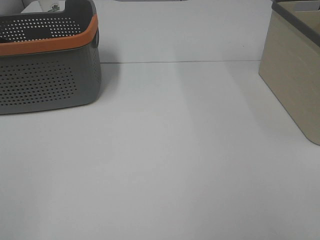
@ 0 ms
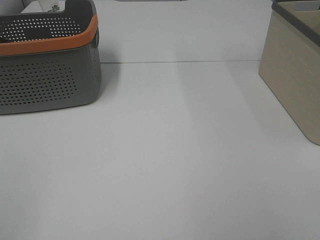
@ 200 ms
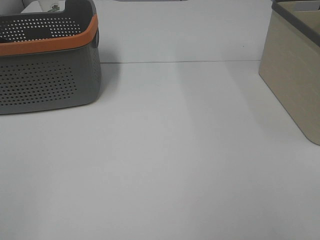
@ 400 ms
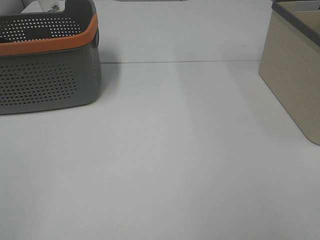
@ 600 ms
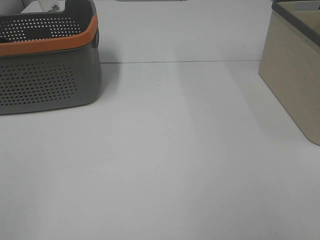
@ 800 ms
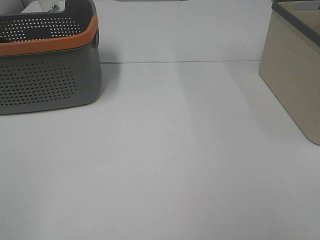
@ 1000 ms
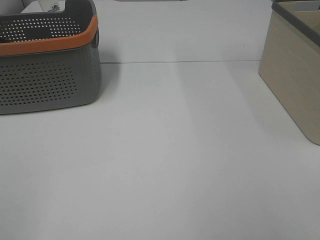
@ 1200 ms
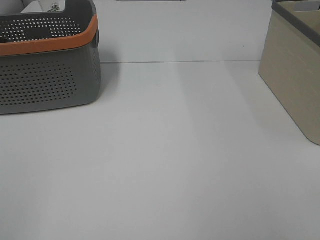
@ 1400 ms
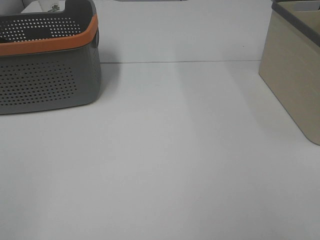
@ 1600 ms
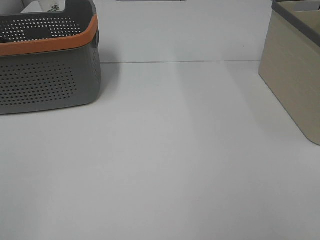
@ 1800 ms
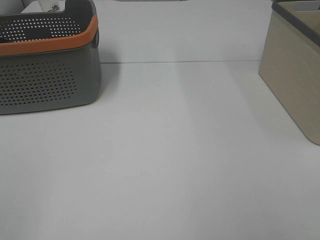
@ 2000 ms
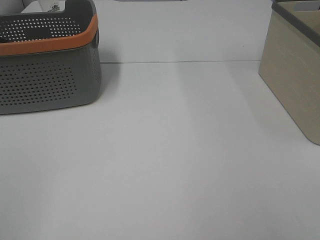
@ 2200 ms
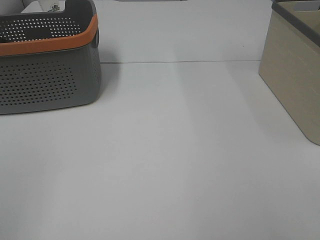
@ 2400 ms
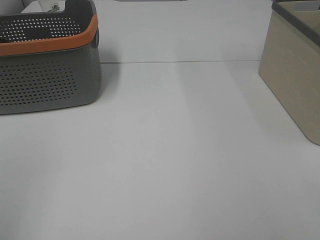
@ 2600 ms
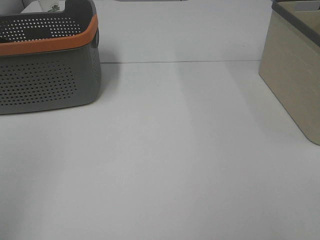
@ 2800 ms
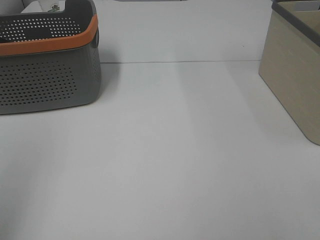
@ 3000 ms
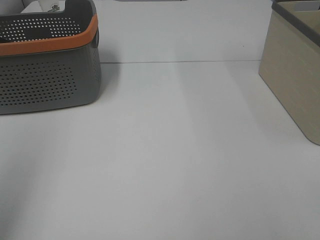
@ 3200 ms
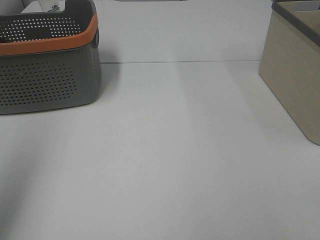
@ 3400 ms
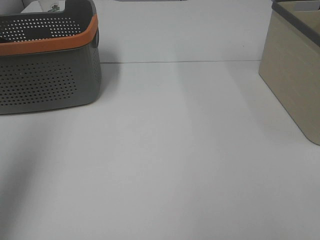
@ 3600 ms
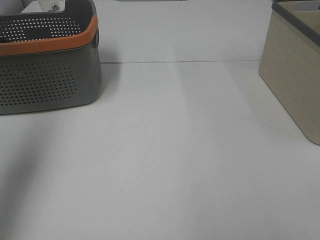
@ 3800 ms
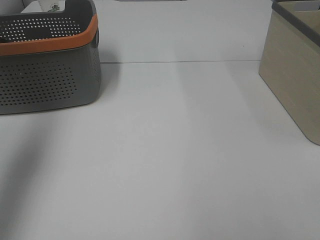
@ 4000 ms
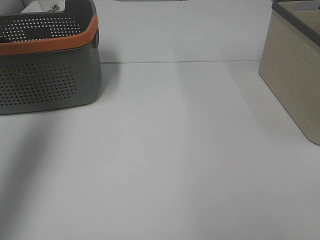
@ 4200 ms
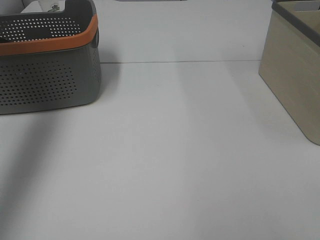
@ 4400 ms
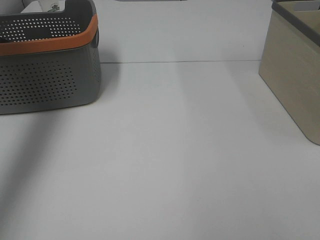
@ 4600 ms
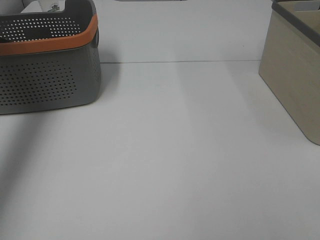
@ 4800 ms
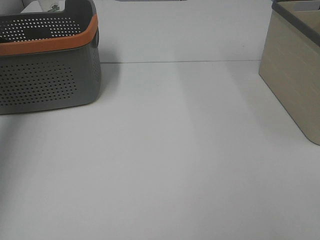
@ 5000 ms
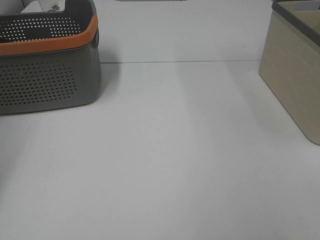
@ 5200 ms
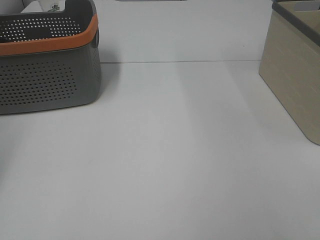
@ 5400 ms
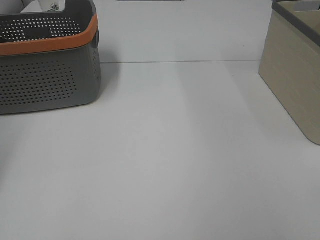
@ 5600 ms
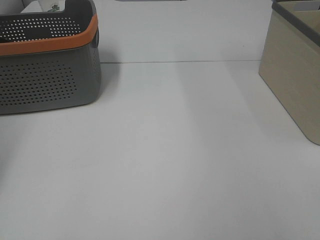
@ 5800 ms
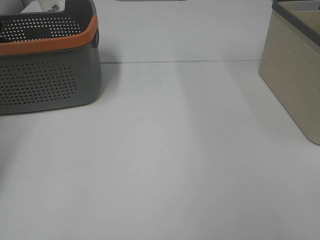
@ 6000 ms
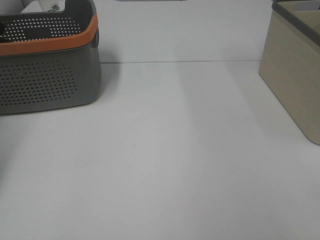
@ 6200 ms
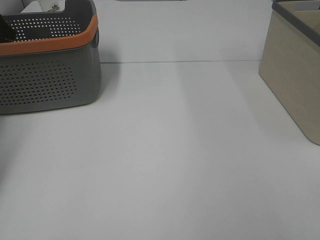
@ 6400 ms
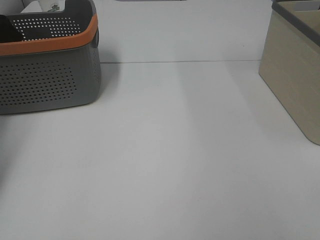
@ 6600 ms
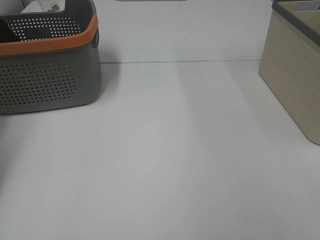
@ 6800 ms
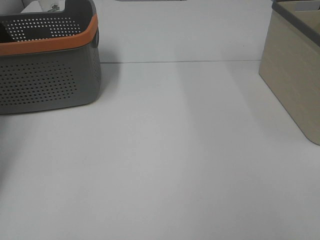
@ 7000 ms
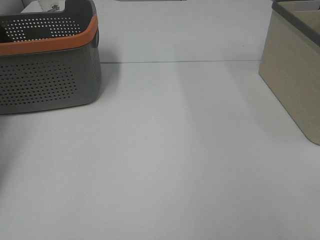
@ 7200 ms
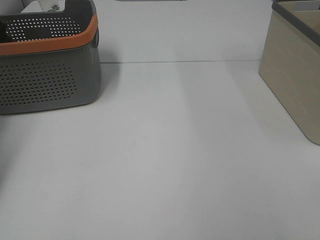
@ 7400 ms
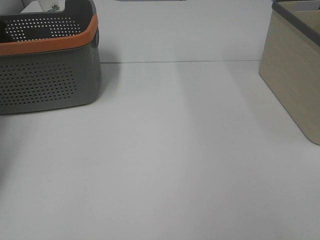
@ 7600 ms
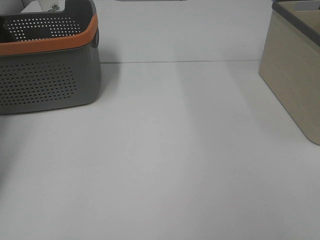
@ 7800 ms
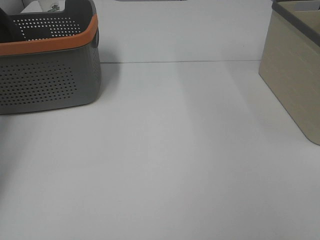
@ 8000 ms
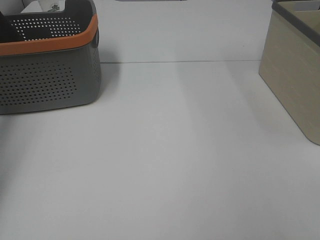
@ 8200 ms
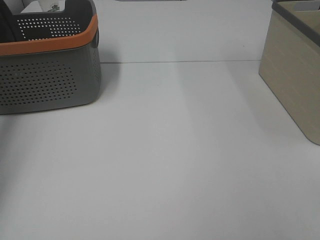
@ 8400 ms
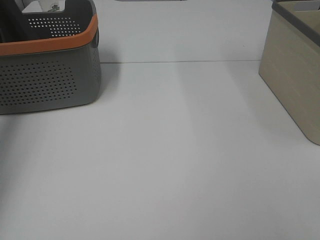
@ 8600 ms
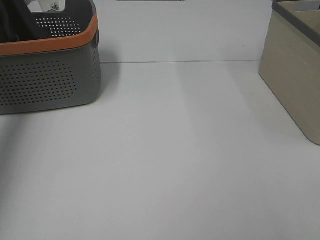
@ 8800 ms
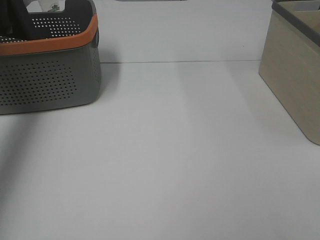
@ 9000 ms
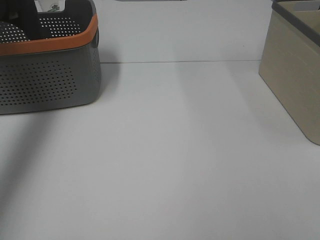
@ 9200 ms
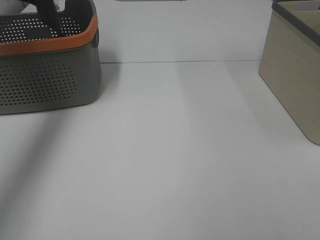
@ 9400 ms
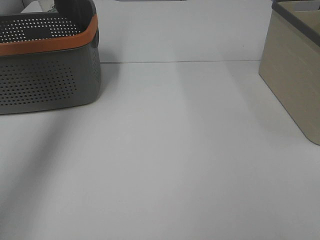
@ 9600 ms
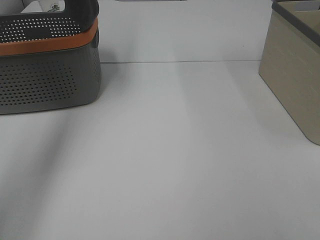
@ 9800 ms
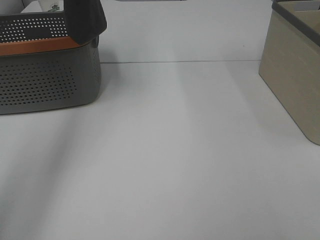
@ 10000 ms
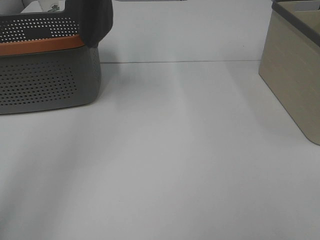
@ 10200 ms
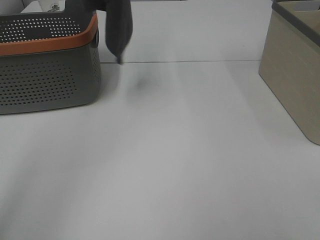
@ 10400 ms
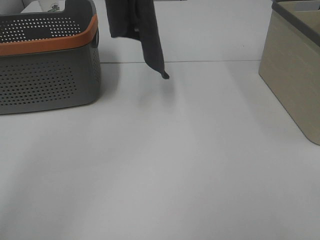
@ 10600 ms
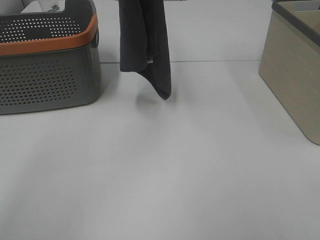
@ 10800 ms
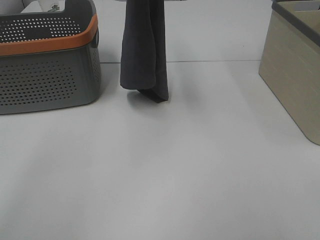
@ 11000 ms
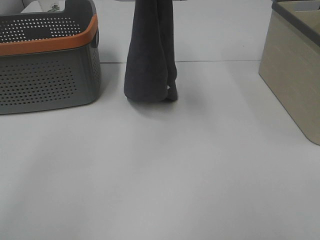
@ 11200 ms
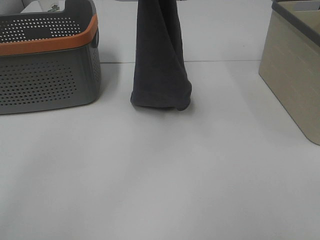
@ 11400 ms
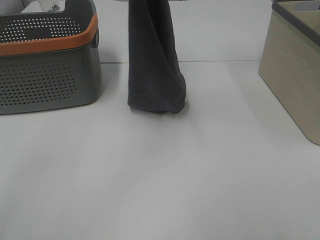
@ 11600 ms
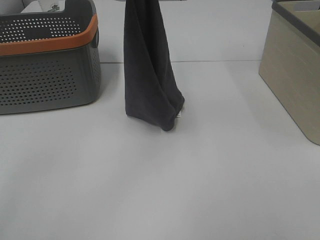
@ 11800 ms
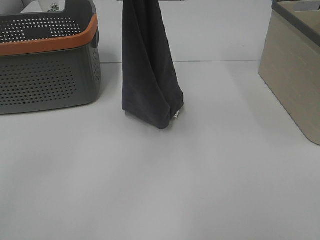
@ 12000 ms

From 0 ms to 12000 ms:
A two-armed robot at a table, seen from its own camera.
Task of the whole recording: Remove the towel and place it.
From 0 ms to 1600 ms: Neither gripper changes place.
From 3000 ms to 4400 ms: The left gripper goes approximately 25 cm forward.
From 4400 ms to 6000 ms: The left gripper travels forward, downward and to the left by roughly 25 cm.
From 7600 ms to 9000 ms: The left gripper moves upward, approximately 25 cm.
From 9000 ms to 10400 ms: The left gripper travels to the right by approximately 20 cm.
From 10400 ms to 12000 ms: The left gripper shifts roughly 20 cm downward, backward and to the right.

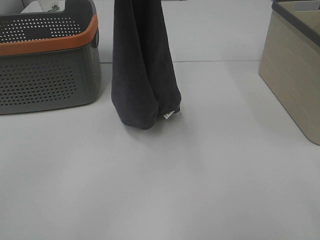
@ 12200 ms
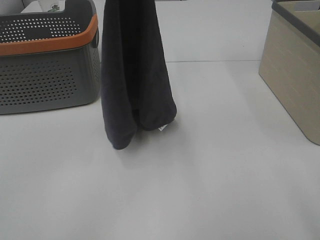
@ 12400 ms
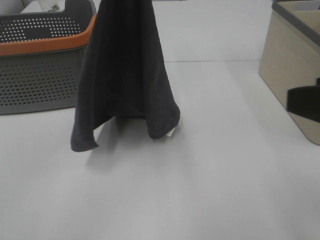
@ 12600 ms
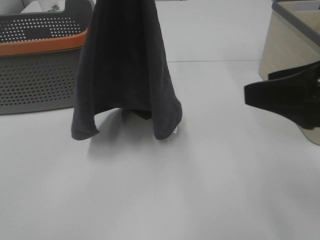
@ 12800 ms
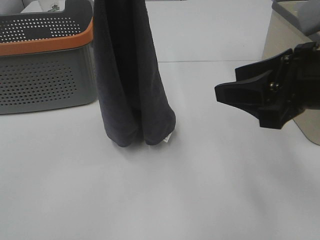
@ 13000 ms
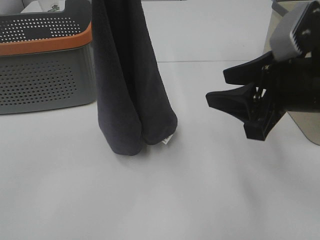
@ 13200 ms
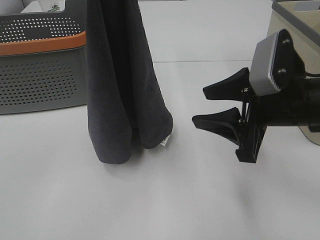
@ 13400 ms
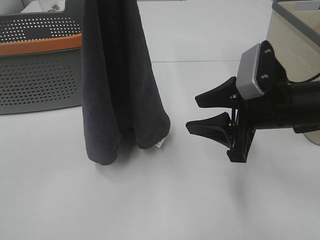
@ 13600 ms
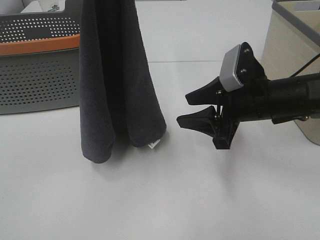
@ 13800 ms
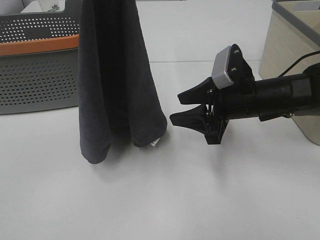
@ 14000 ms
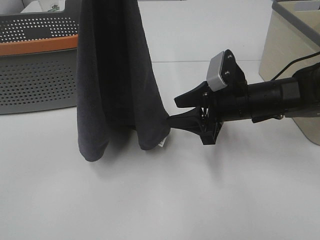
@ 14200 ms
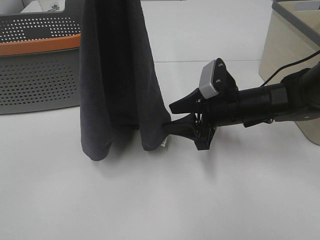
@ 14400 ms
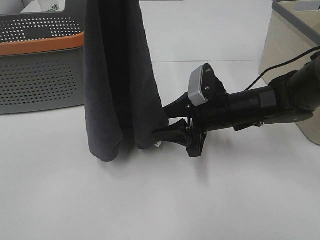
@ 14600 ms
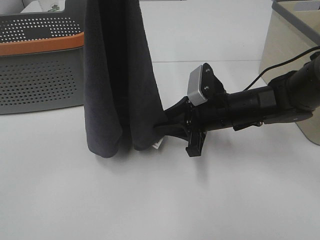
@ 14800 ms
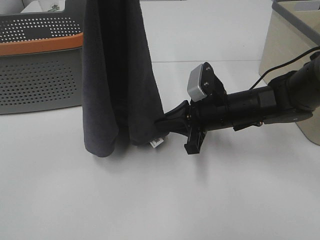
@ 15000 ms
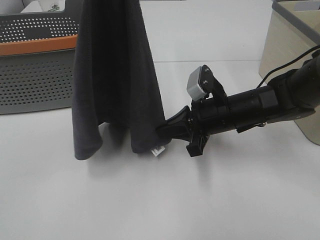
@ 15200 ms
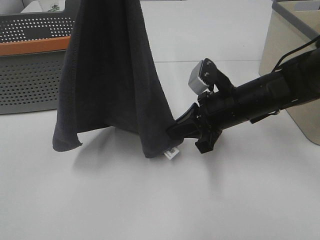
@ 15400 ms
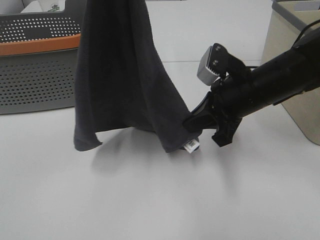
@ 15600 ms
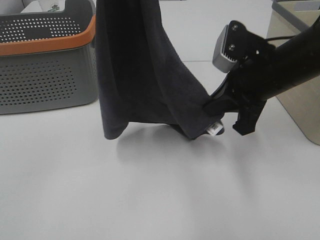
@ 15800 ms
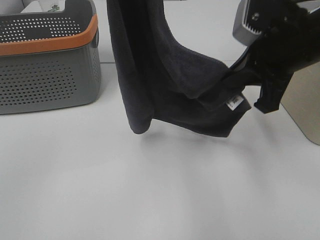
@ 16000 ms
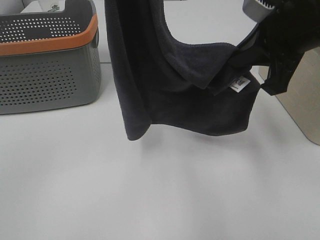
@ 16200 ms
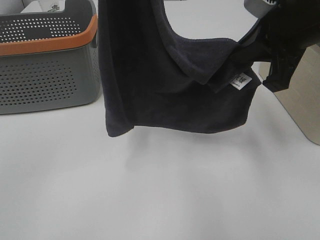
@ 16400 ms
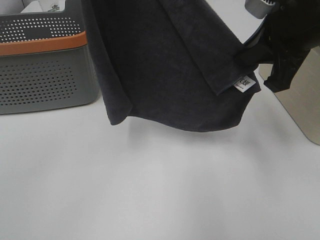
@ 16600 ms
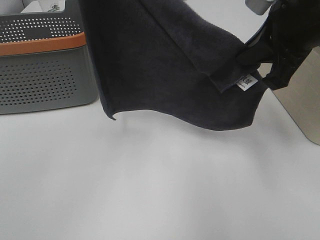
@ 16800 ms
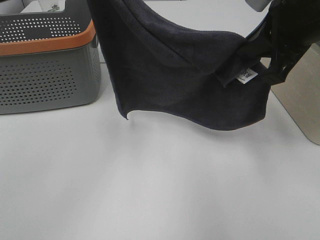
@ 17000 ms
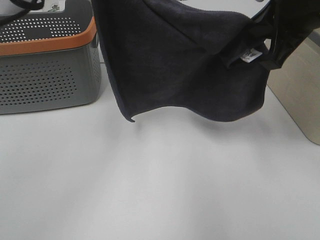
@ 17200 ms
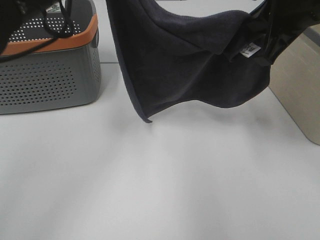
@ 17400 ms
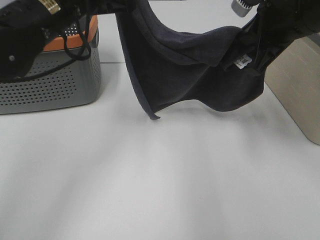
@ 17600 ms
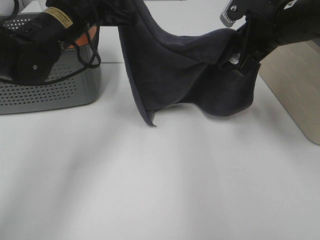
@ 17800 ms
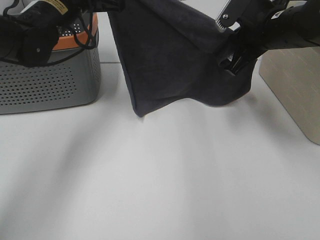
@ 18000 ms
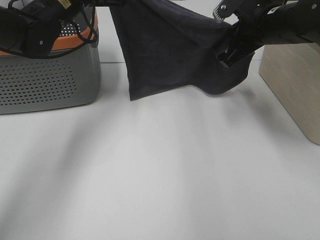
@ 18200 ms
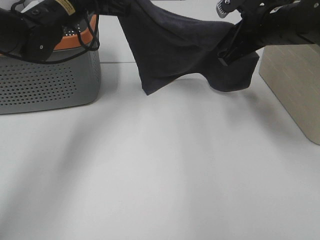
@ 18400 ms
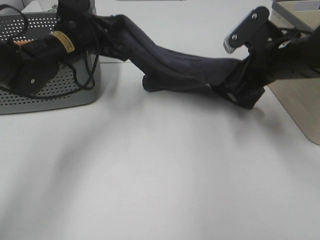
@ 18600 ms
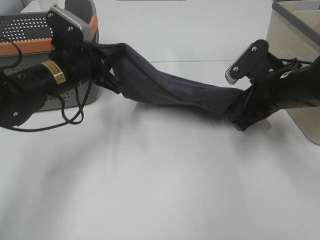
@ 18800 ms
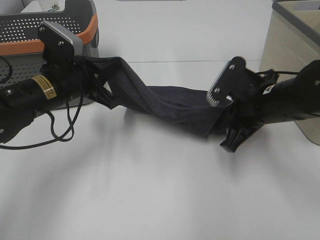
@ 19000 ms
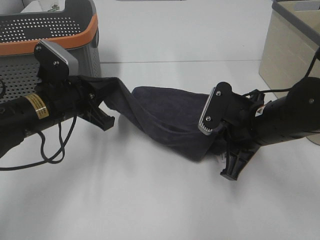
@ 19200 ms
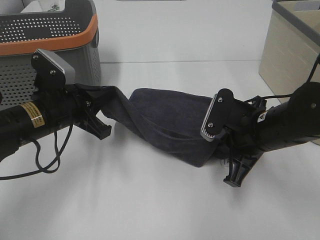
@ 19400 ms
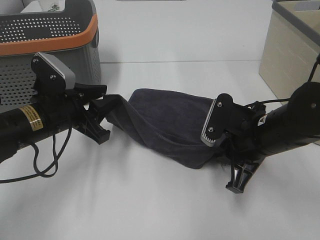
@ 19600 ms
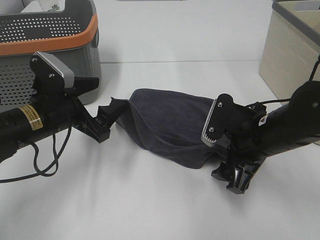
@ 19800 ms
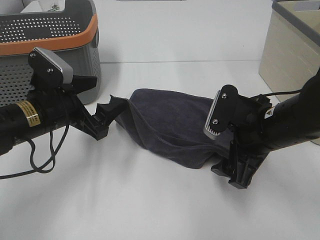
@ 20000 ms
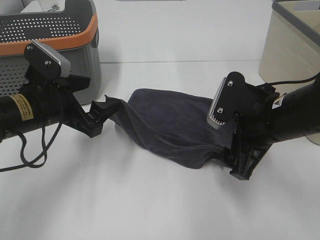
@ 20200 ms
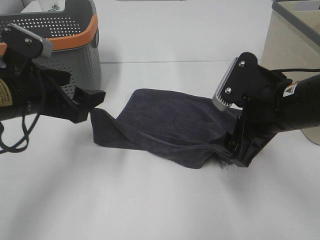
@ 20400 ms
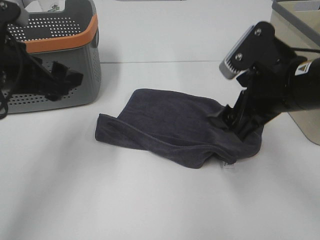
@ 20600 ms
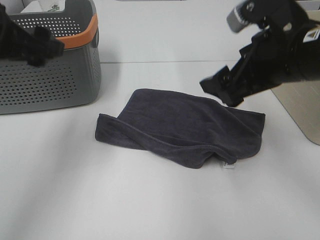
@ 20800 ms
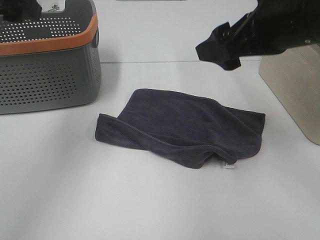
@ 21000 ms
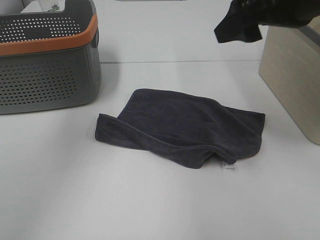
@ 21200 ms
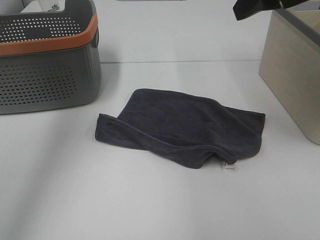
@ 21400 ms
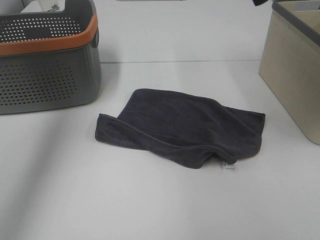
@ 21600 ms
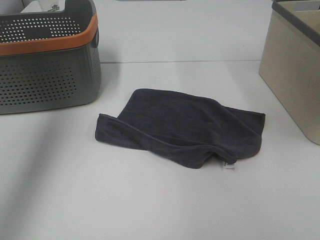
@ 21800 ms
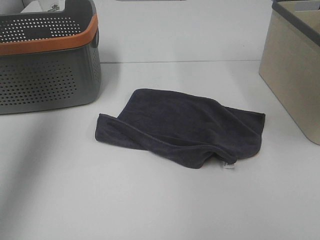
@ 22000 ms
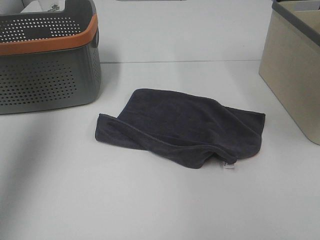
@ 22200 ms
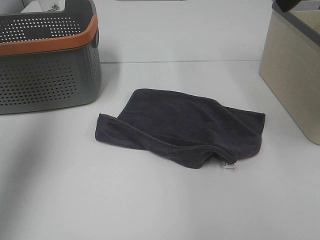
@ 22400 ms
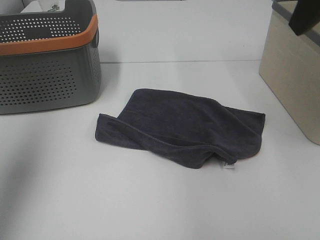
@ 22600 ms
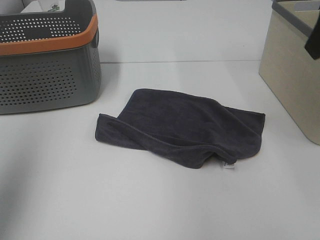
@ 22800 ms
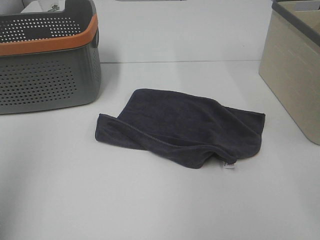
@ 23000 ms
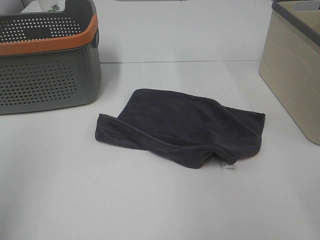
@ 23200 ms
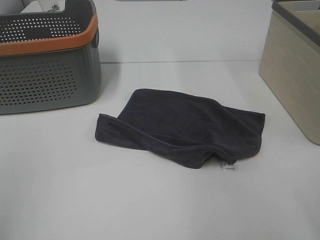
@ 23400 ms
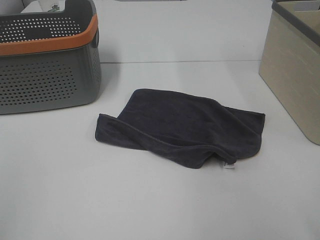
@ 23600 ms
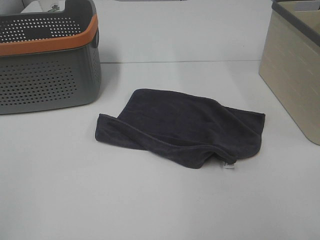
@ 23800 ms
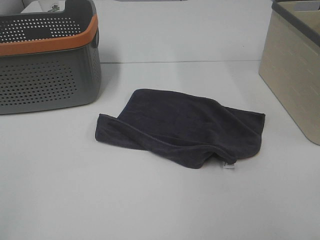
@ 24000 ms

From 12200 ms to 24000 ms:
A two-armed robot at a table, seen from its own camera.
Task of the whole recording: Remove the towel and place it.
Step, from 14000 ms to 15800 ms: Right hand: spread the grey towel flat on the table.
From 12200 ms to 13600 ms: The right gripper goes approximately 25 cm forward and downward.
From 13600 ms to 15200 ms: The right gripper shifts approximately 10 cm downward and forward, and closes its fingers.
From 15200 ms to 16600 ms: The left gripper moves some 5 cm, while the right gripper is displaced upward by about 20 cm.
From 16600 ms to 18200 ms: The right gripper shifts roughly 15 cm forward and downward. The left gripper moves downward and forward, roughly 25 cm.
From 18200 ms to 19600 ms: Both grippers travel together backward and downward, approximately 20 cm. The left gripper opens.
From 19600 ms to 21000 ms: The two grippers go roughly 20 cm upward. The left gripper opens up. Meanwhile the right gripper opens up.
From 21000 ms to 22600 ms: The right gripper goes about 10 cm upward and to the right. Meanwhile the left gripper moves to the left and backward, approximately 15 cm.
From 22600 ms to 24000 ms: Both grippers travel together backward and downward, roughly 25 cm.
